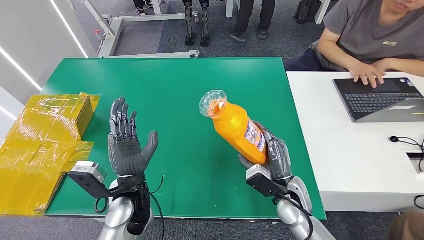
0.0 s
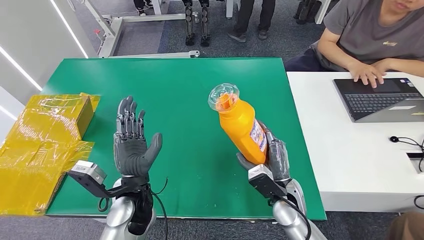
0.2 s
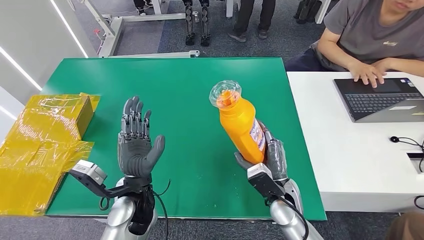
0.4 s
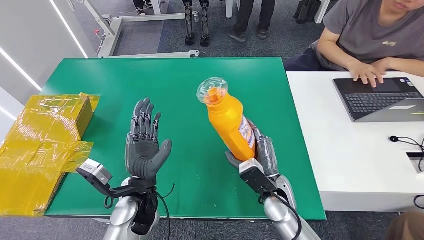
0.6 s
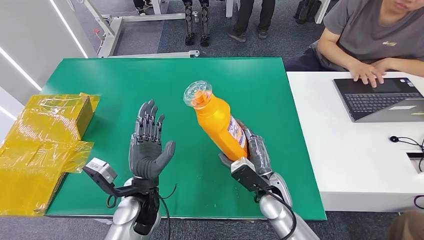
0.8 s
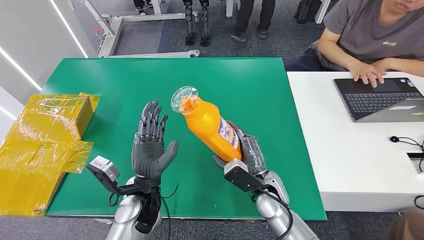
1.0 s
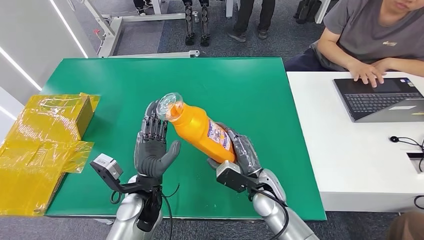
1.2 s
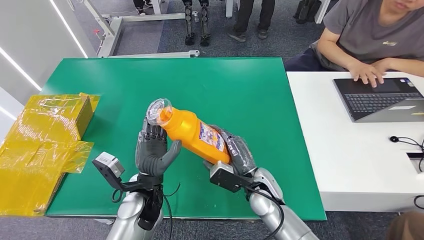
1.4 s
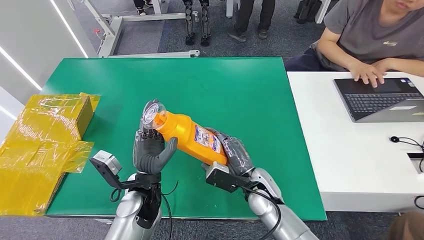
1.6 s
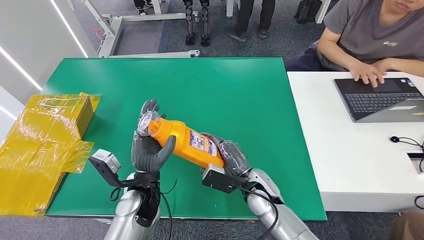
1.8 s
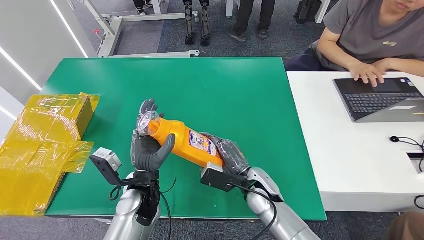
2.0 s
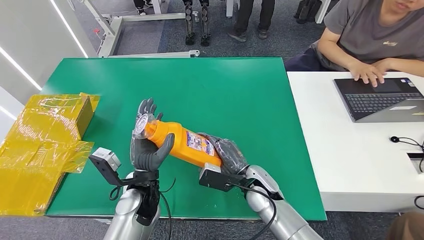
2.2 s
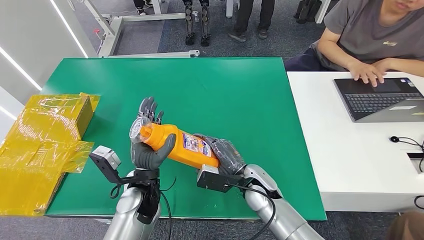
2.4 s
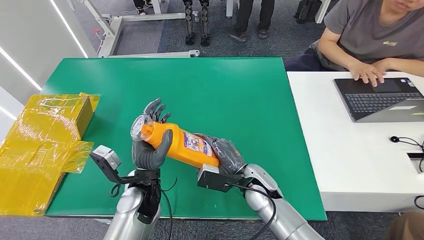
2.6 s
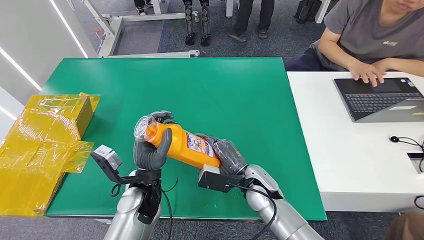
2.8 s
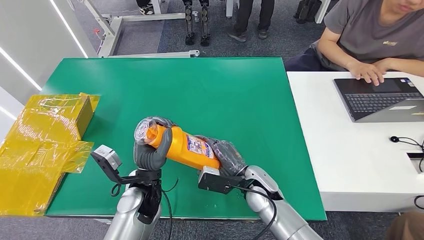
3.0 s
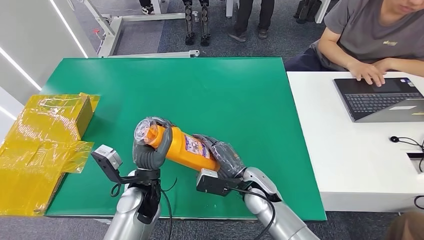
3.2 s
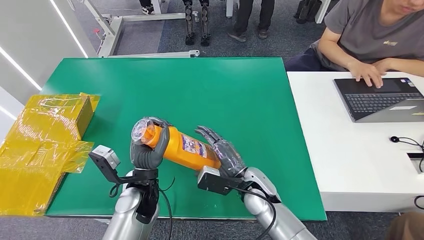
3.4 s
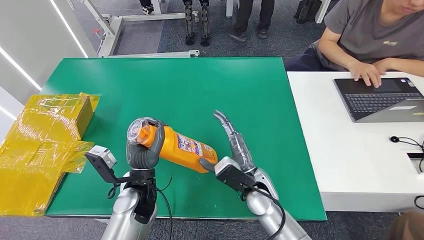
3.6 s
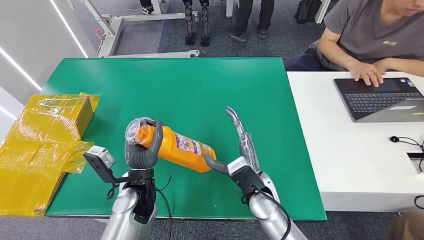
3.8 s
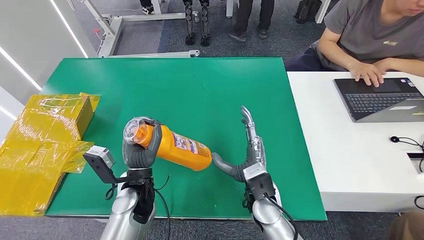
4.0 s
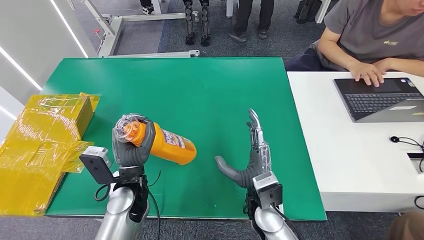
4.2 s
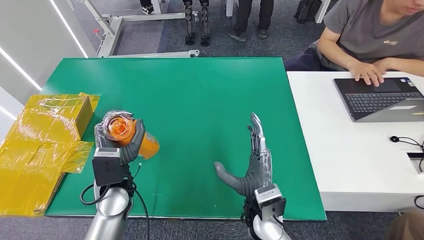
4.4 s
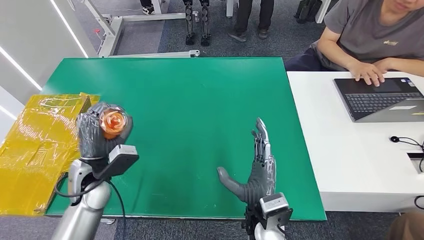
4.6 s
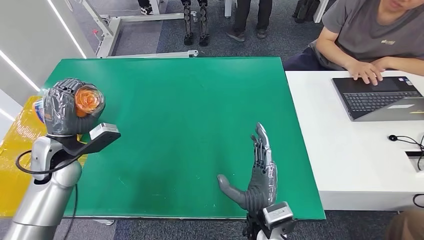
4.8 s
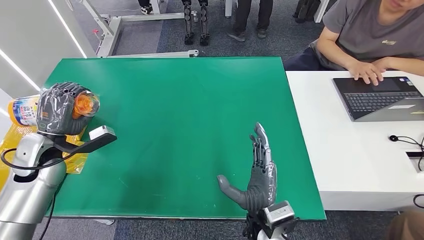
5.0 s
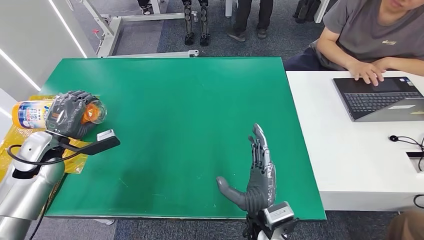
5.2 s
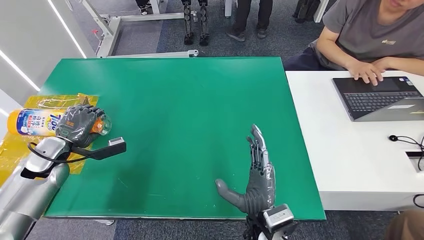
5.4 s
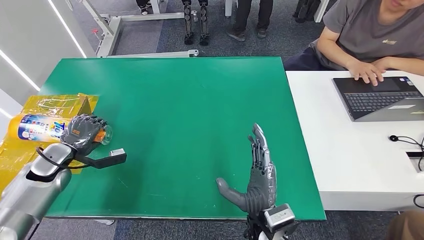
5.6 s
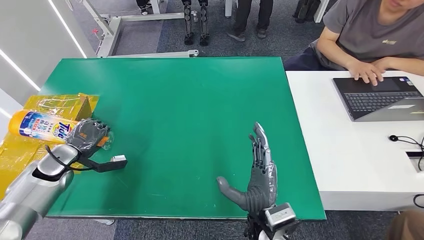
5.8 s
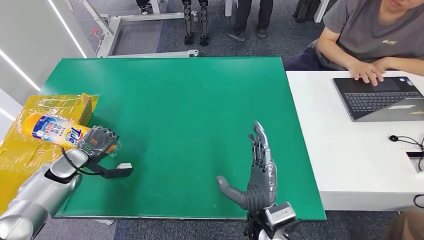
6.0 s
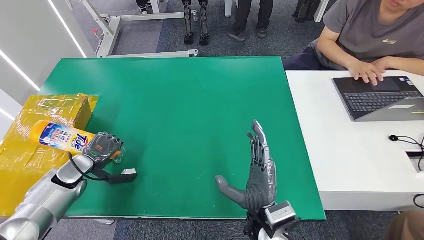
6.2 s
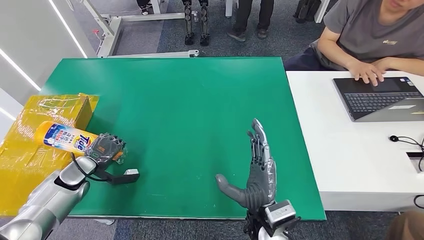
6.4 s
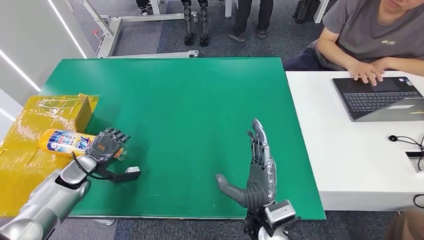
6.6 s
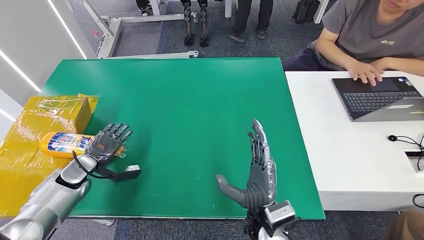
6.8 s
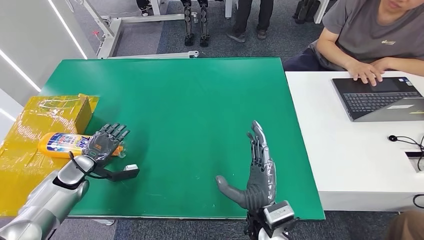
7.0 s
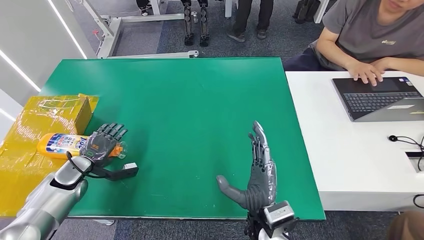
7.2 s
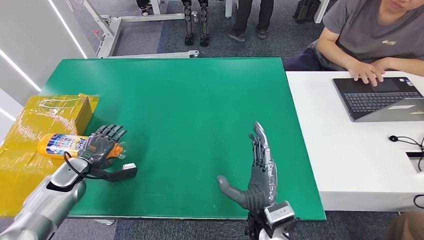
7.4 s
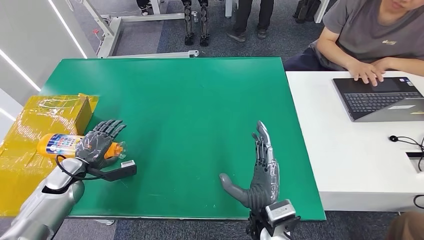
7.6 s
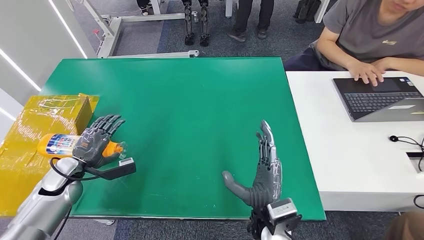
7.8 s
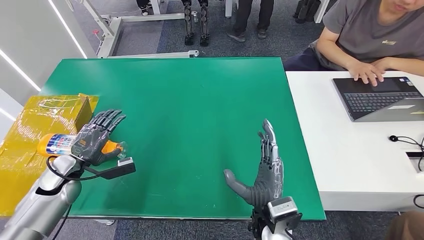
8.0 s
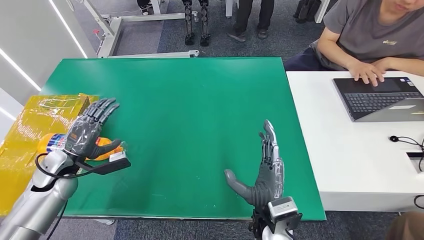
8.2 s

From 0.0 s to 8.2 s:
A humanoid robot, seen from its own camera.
Step, from 0.2 s to 8.2 s: Turn the bottle to the front side.
From 0.0 s to 1.6 s: The right hand travels to the left by some 10 cm.
From 1.6 s to 3.2 s: The hands move only a little.
From 5.0 s to 6.6 s: The left hand heads downward, covering some 15 cm.
From 6.6 s to 8.2 s: The left hand shifts approximately 5 cm upward.
